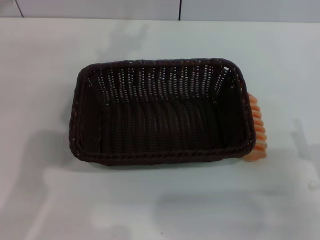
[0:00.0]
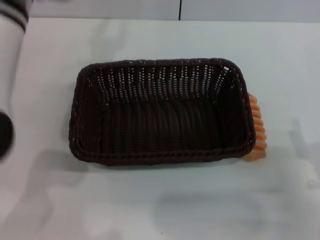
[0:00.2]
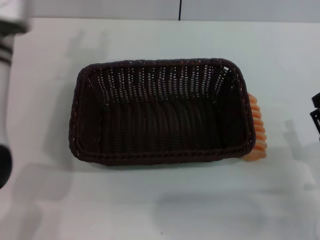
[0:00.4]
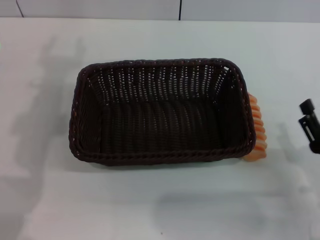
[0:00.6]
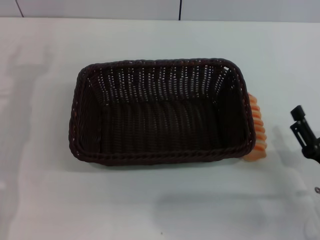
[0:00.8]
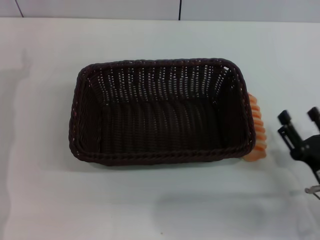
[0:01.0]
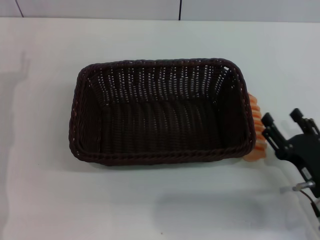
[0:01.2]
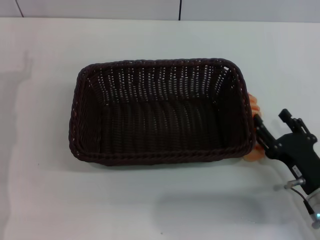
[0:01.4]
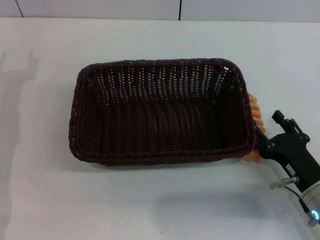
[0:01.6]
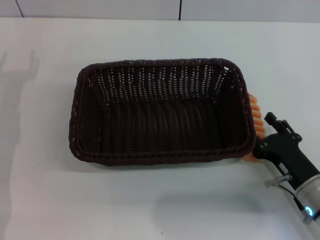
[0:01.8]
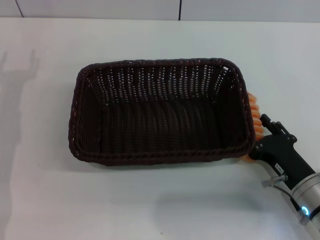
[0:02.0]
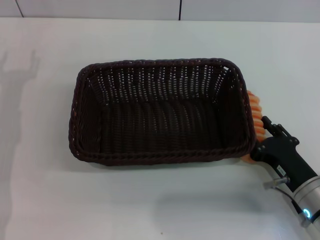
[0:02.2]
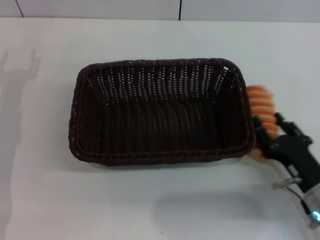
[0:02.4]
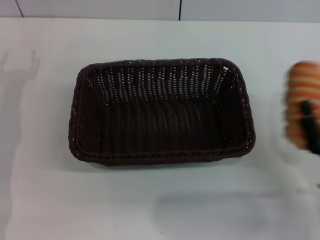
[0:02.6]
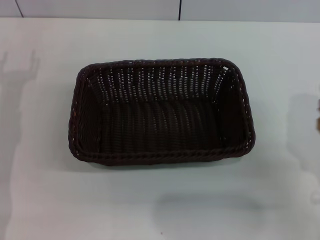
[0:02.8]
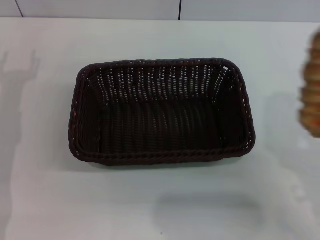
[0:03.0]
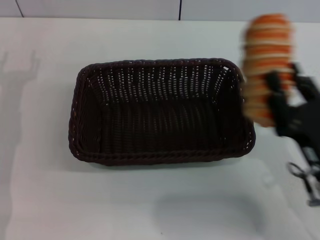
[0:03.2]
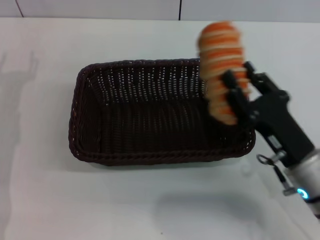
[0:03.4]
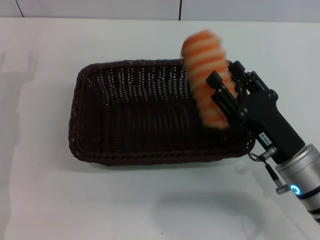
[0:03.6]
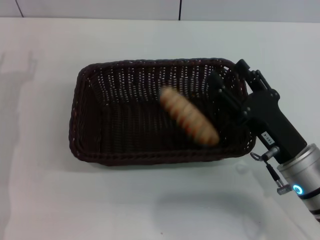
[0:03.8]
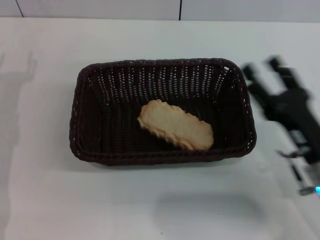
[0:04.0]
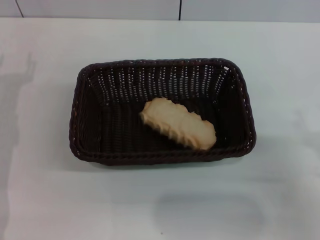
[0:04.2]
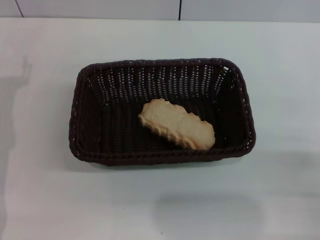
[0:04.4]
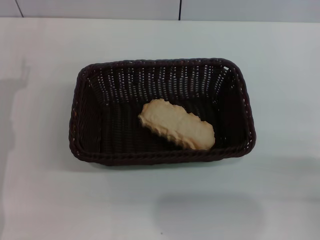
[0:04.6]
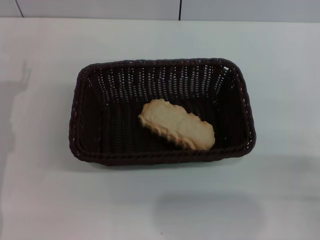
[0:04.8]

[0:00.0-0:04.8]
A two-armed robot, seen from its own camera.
Step, 0:00.0 to 0:02.6: Pick up the long bread with the right gripper.
Step, 0:02.8 to 0:03.8: Place the long bread into the light basket with the right gripper.
0:00.0 to 0:01.6: The right gripper changes place by about 5 cm.
0:01.6 to 0:03.2: The right gripper is displaced upward by approximately 5 cm, and closes up.
0:03.2 to 0:04.8: The right gripper shifts about 10 cm to the right, and opens up.
